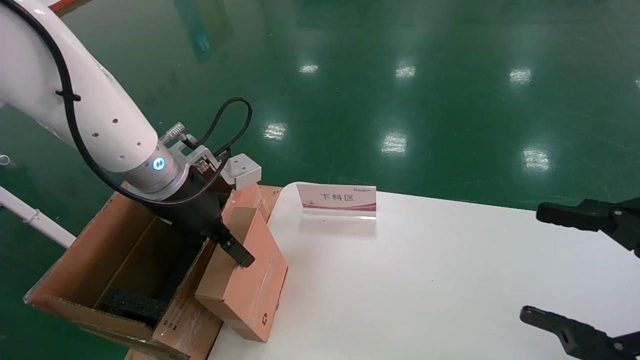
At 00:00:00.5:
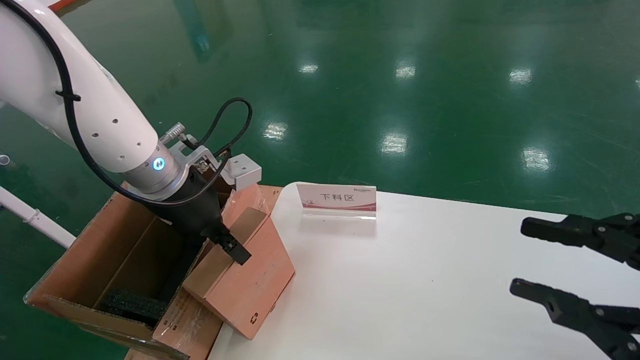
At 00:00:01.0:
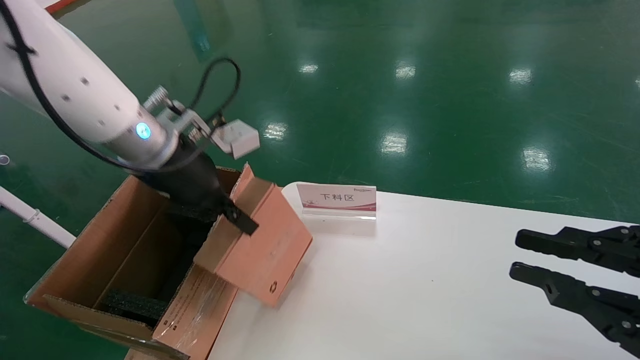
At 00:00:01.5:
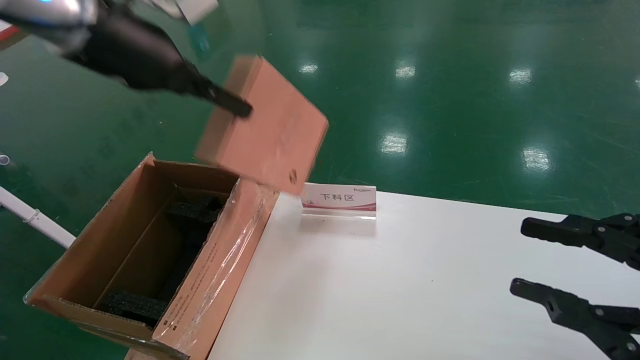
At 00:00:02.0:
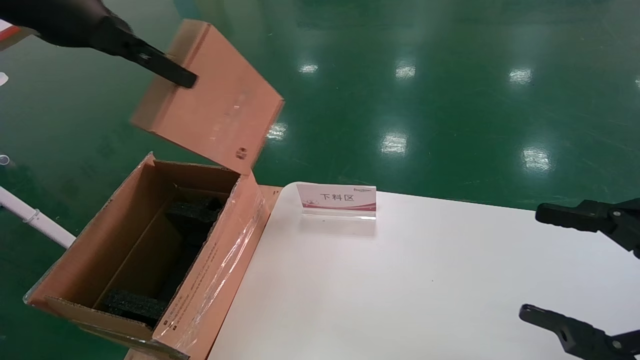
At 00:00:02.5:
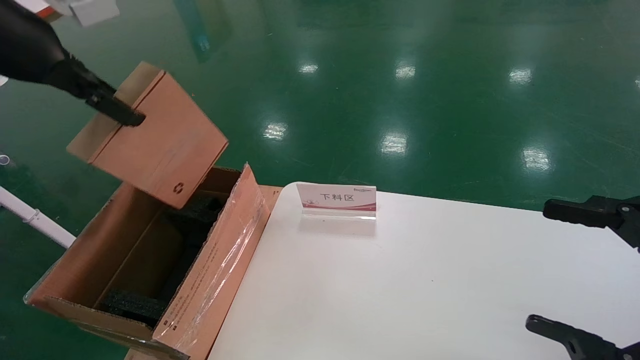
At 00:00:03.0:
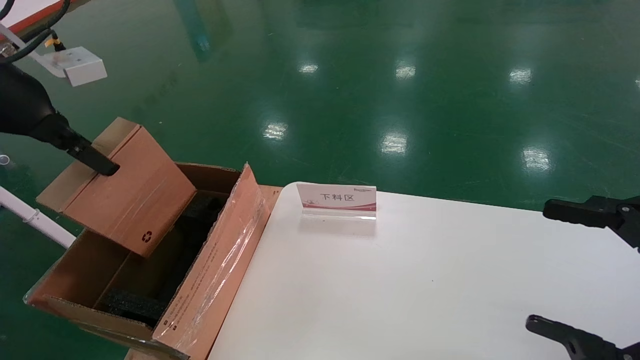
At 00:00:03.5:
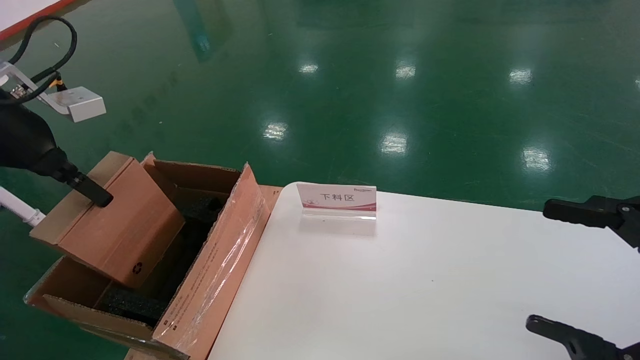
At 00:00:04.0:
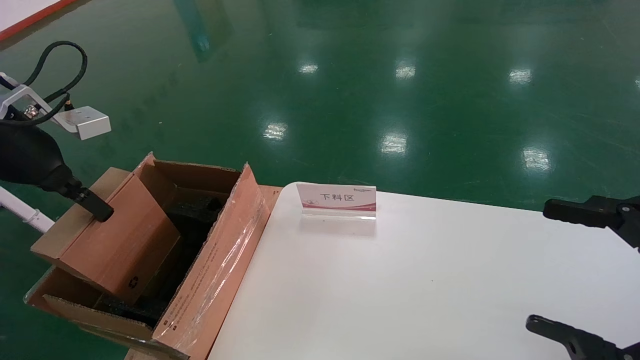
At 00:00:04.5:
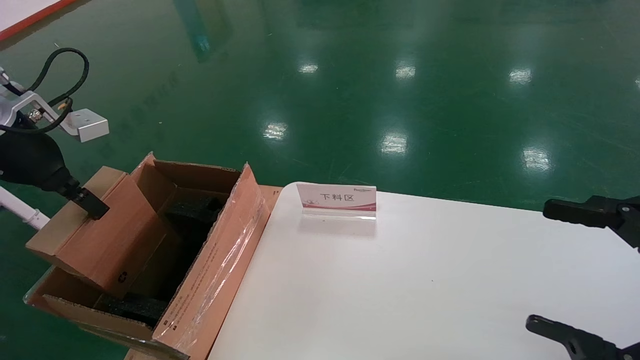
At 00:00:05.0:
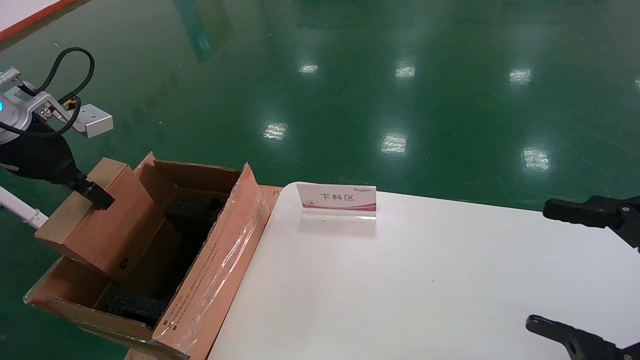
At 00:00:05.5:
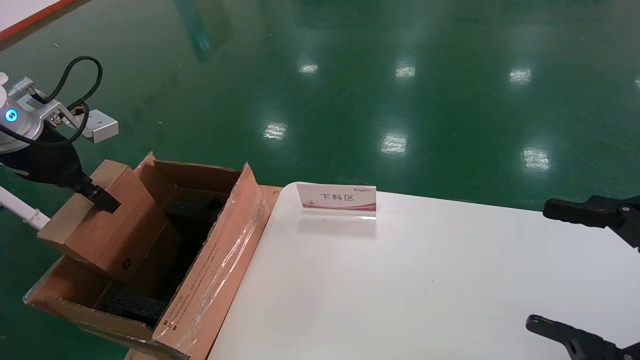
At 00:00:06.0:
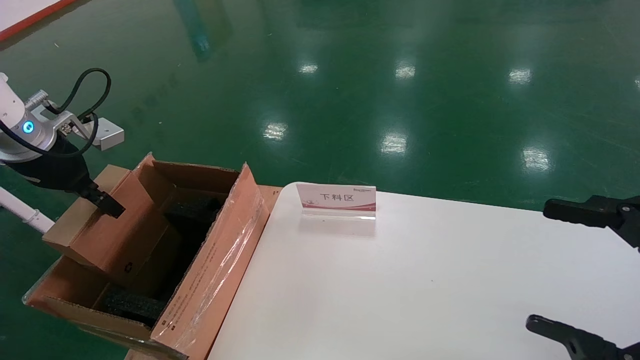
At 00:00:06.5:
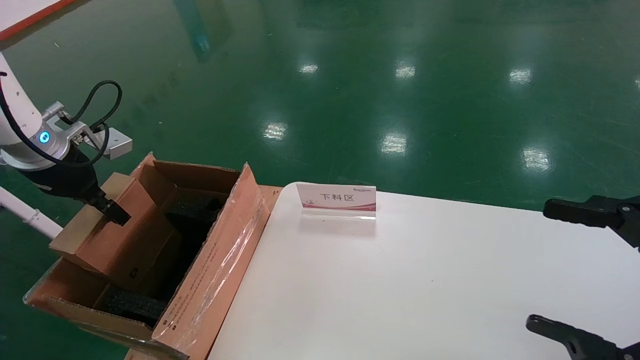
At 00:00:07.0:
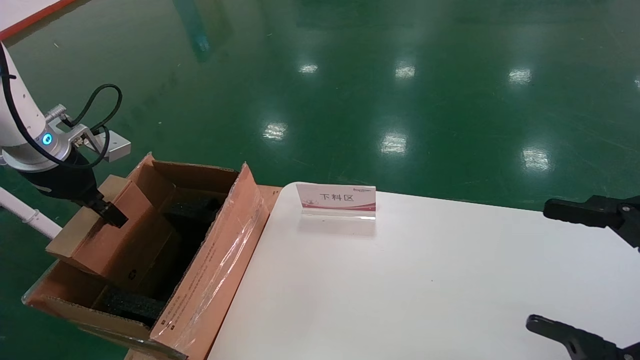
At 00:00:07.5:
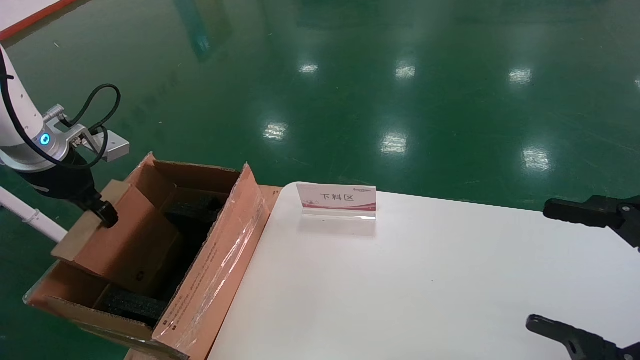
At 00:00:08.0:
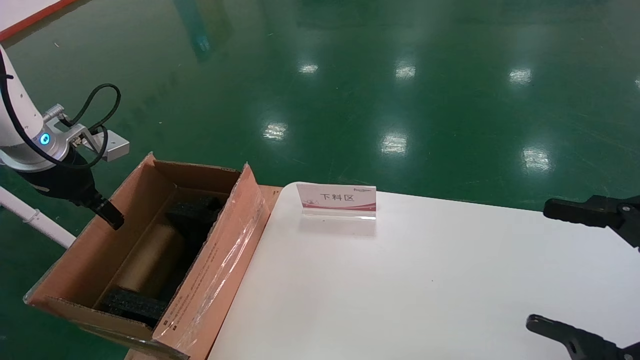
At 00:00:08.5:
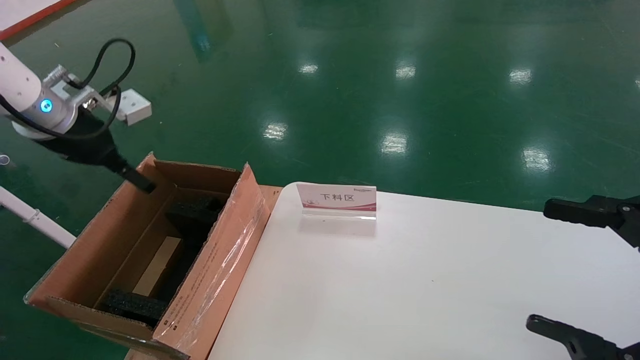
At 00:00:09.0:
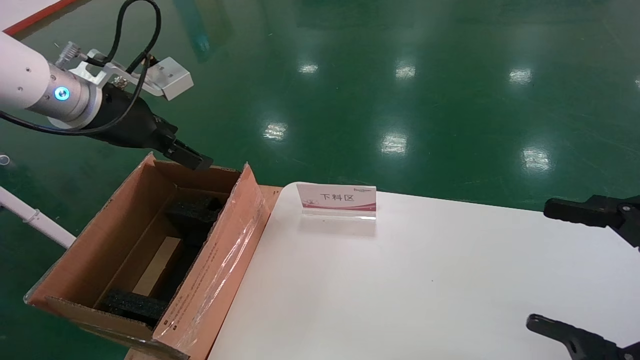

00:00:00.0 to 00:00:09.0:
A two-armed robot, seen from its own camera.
Task of the whole recording: pick up the small cardboard box and load it into the large cardboard box.
Step, 00:00:01.0 to 00:00:08.0: Place the mouse and power cord box into the case.
00:00:00.0 to 00:00:02.0: The left gripper is displaced upward and to the left by approximately 25 cm, and closes, while the right gripper closes and opens again.
00:00:02.0 to 00:00:04.5: The left gripper travels downward and to the left by roughly 20 cm.
00:00:04.5 to 00:00:07.0: The left gripper moves downward and forward, roughly 5 cm.
00:00:07.0 to 00:00:09.0: The left gripper moves to the right and upward, some 15 cm, and opens up.

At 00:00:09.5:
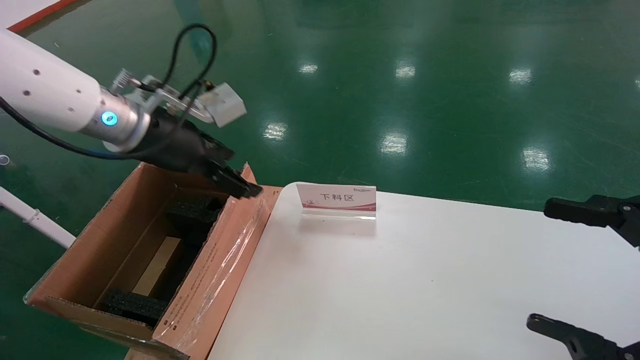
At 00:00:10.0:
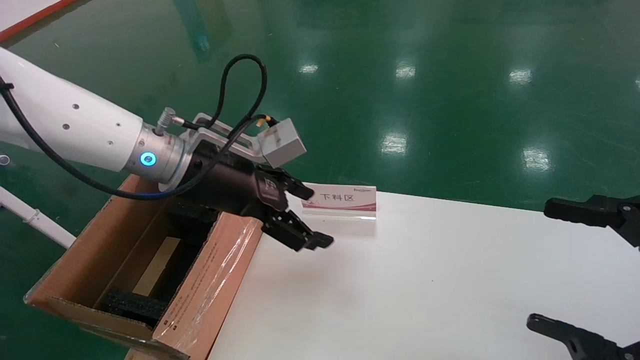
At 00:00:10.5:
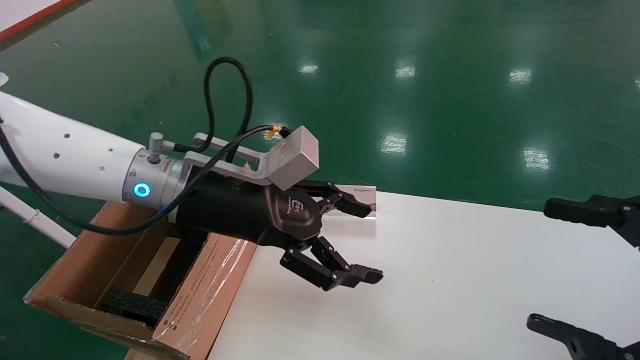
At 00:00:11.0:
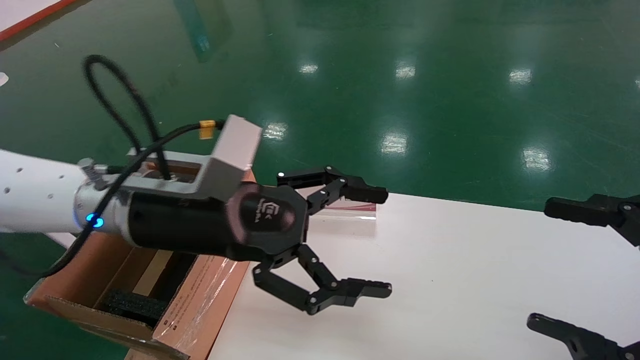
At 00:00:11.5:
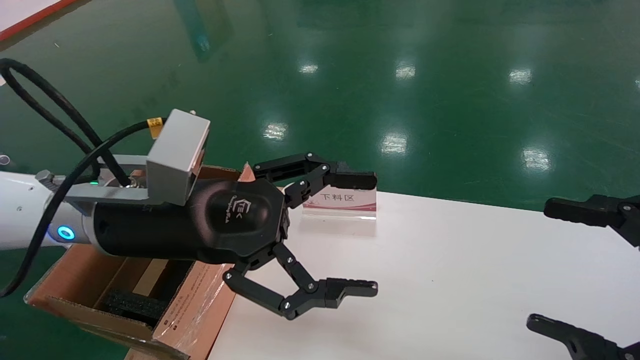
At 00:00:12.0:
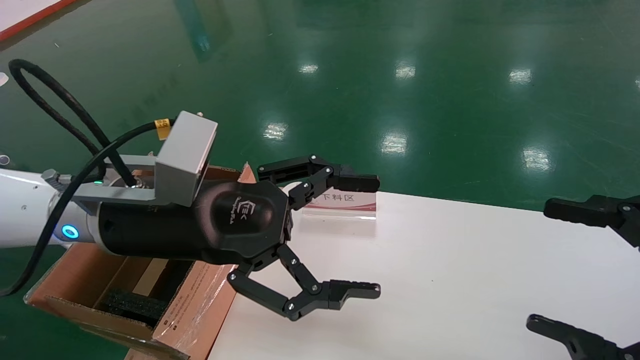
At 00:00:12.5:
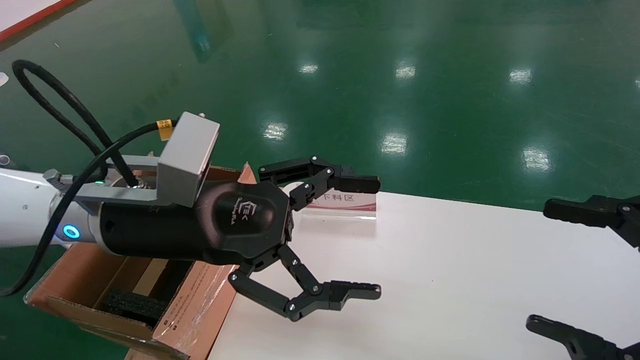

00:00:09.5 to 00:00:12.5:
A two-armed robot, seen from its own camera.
Task of the whole recording: pick up the small cardboard box and load it into the large cardboard box.
00:00:09.5 to 00:00:11.0: The left gripper shifts some 15 cm to the right, backward and downward.
00:00:11.0 to 00:00:12.5: The grippers stay close to where they were, moving slightly.
